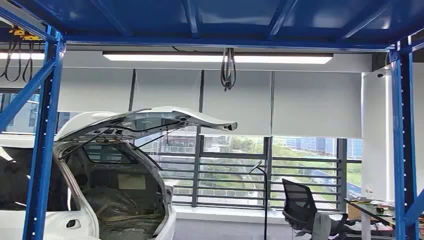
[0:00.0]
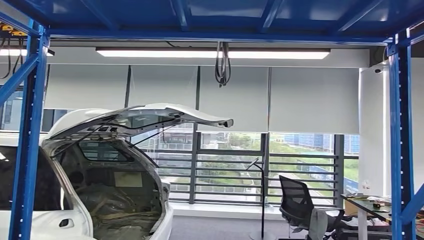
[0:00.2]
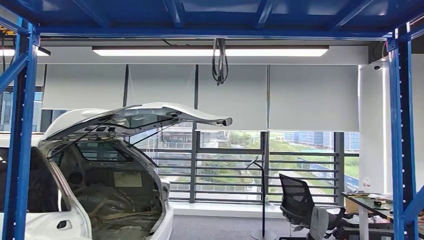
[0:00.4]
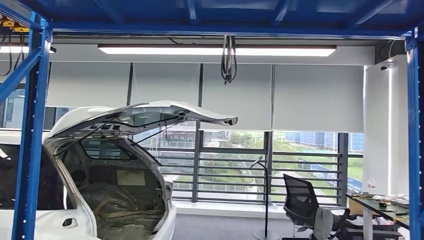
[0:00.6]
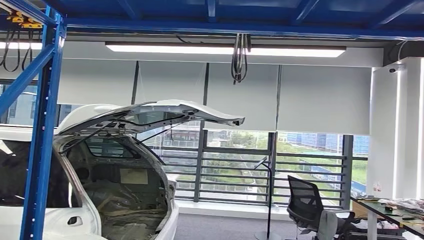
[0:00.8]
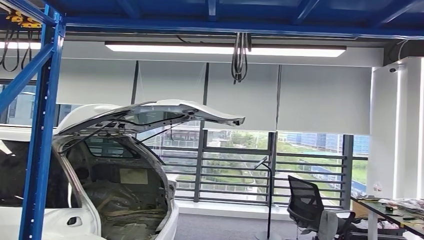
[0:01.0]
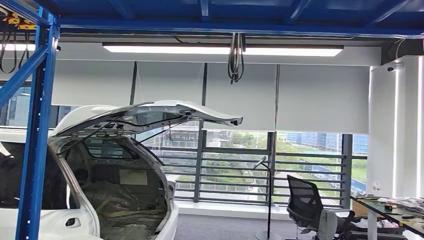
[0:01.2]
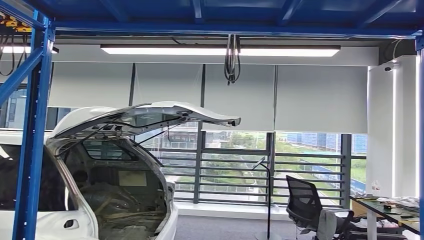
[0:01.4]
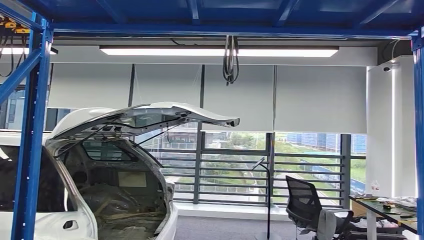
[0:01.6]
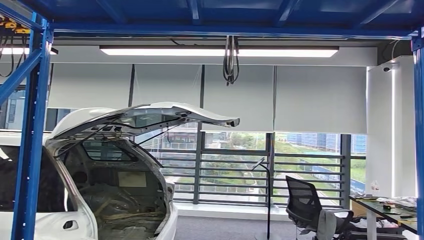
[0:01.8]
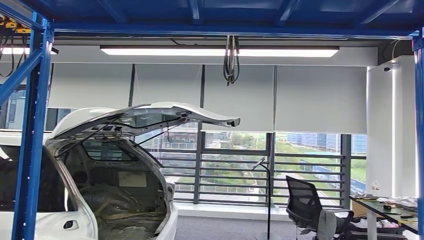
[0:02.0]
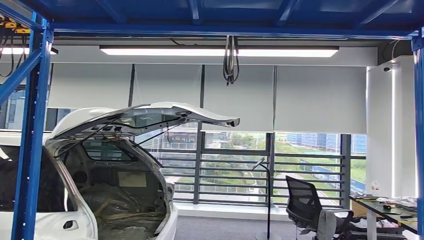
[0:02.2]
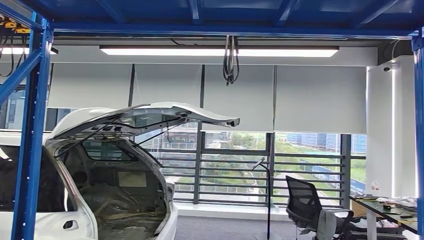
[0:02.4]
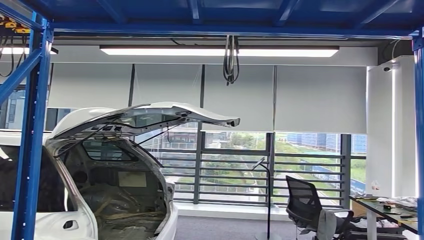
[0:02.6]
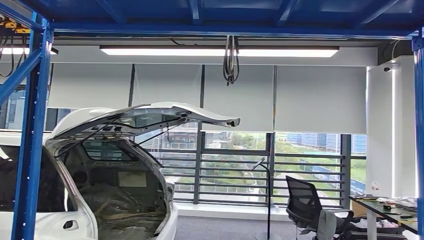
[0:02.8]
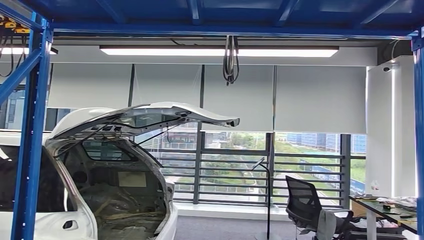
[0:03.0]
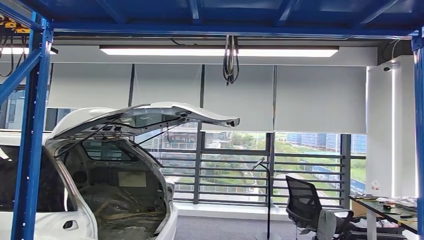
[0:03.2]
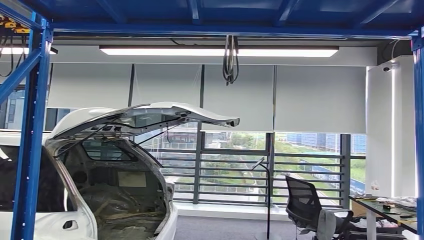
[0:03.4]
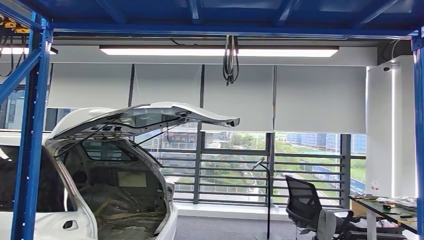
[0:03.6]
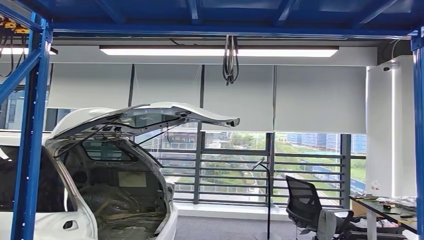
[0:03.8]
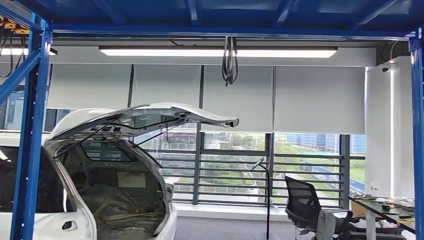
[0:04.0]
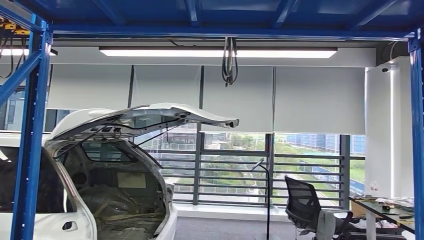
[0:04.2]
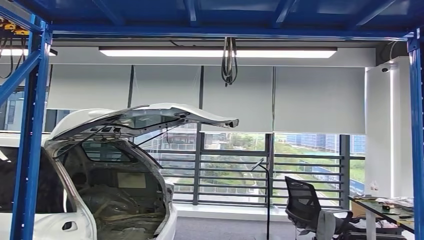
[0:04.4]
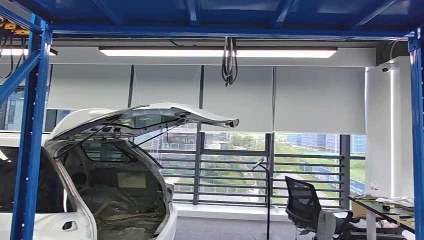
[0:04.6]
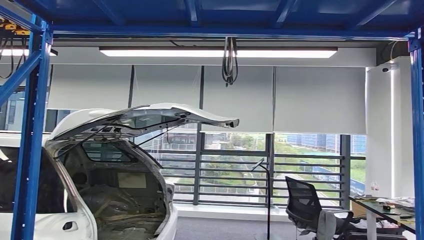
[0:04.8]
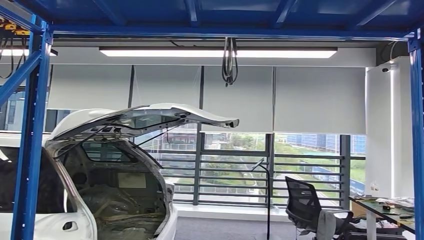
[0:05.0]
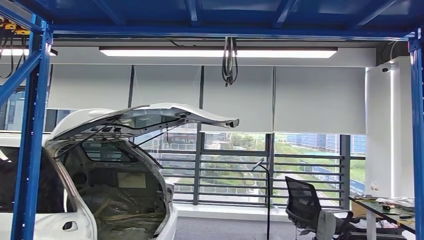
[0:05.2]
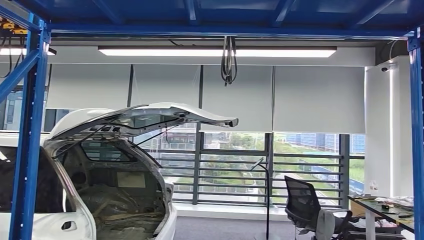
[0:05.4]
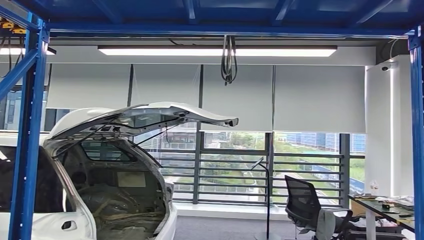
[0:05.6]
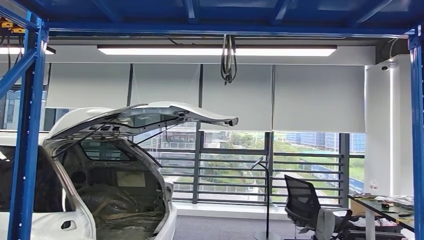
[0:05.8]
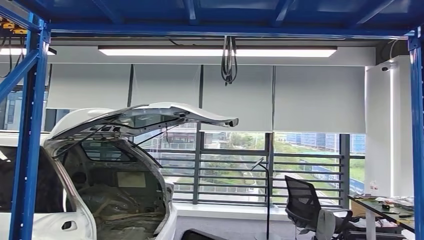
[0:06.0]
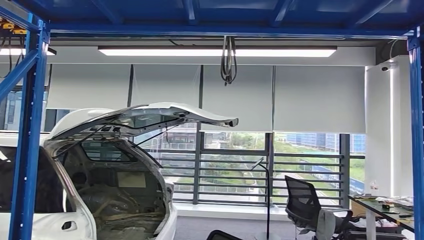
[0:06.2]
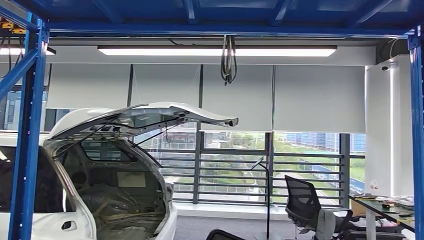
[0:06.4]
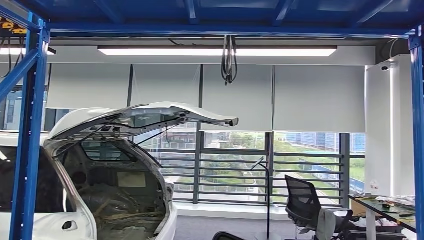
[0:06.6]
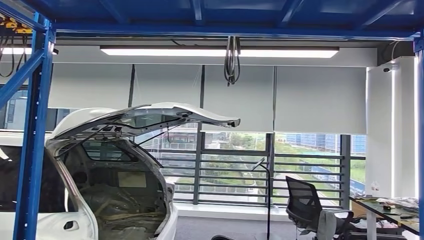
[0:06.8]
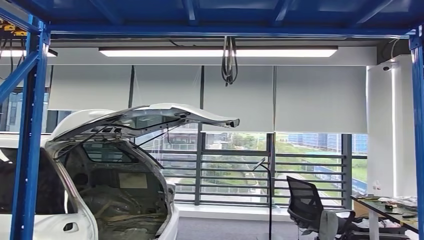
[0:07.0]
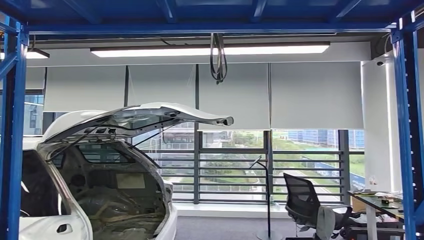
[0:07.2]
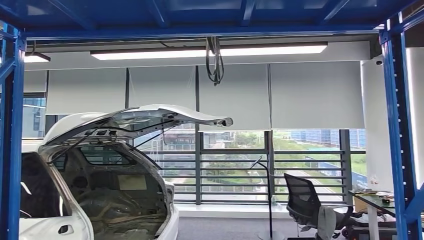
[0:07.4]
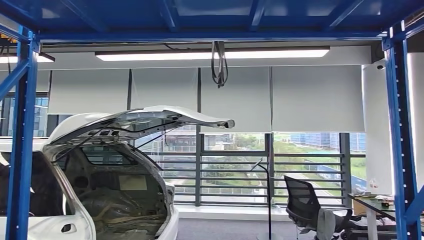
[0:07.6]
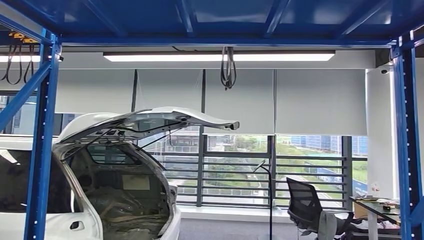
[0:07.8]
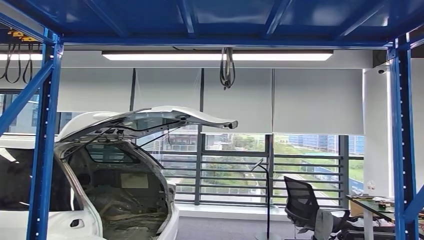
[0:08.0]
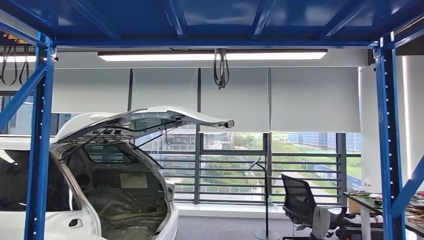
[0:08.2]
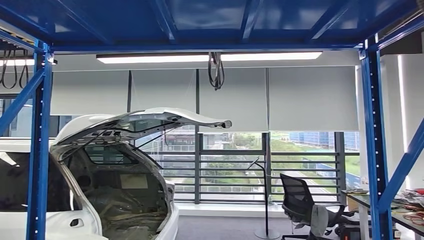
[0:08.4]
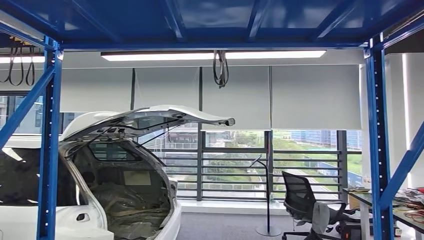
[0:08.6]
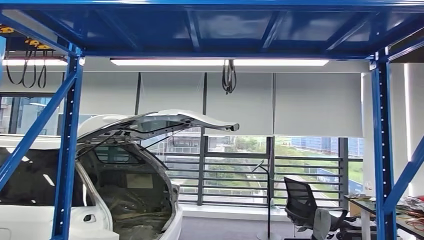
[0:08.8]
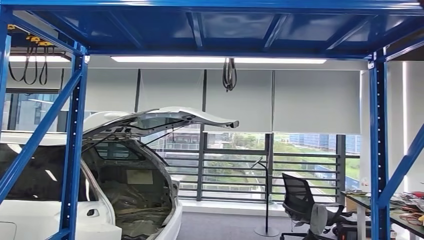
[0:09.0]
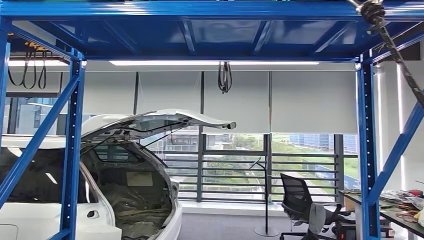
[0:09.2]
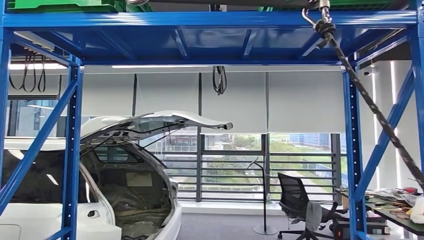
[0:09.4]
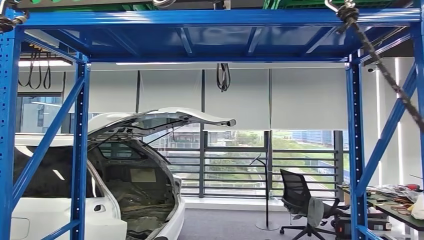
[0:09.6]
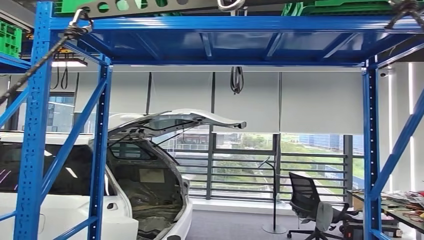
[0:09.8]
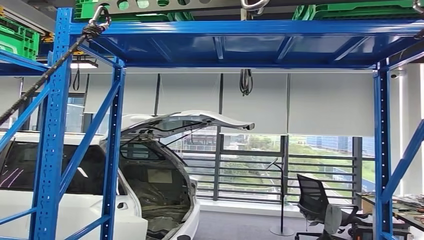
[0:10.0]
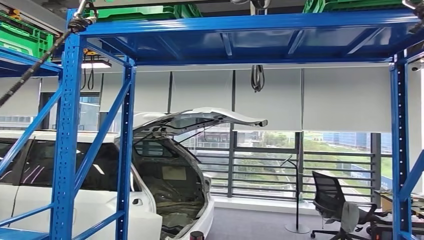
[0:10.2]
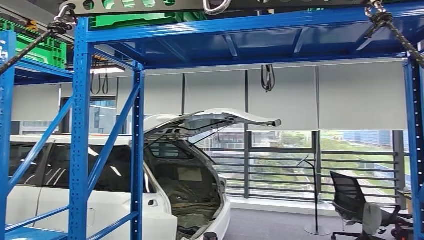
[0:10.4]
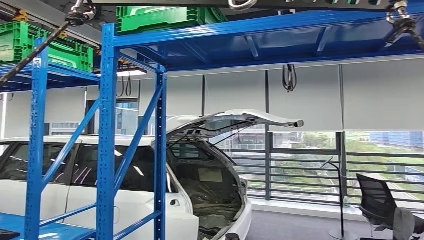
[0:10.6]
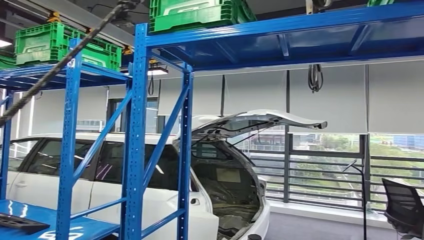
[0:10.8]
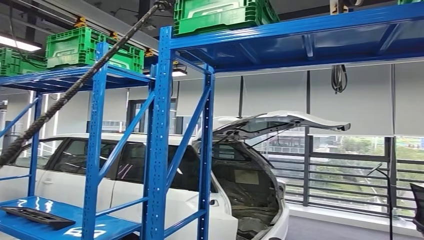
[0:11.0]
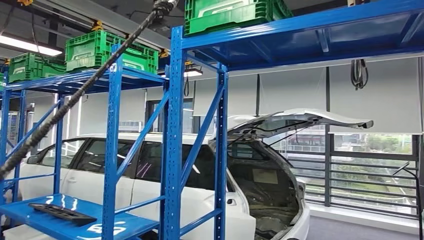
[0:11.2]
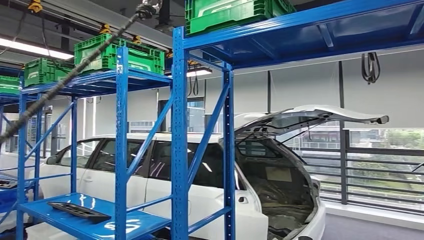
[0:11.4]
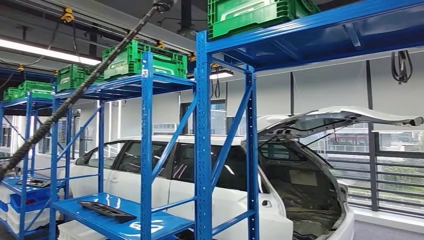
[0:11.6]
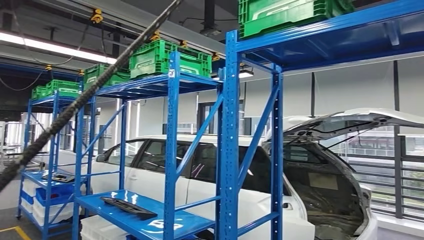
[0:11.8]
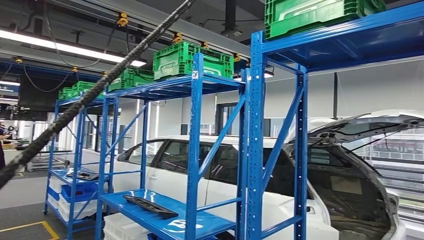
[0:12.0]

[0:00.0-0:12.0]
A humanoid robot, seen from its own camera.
Step, 0:00.0 to 0:05.8: Pick up the small component from the shelf.
0:03.0 to 0:04.4: The right hand moves forward and to the left, about 15 cm.
0:04.4 to 0:06.0: The right hand moves upward and backward, approximately 15 cm.

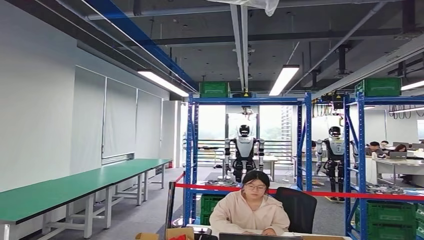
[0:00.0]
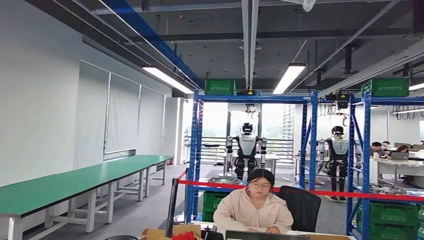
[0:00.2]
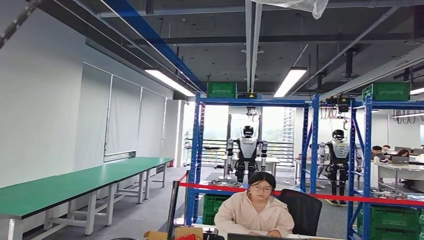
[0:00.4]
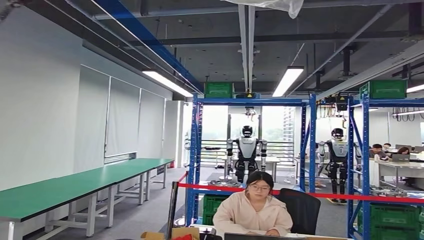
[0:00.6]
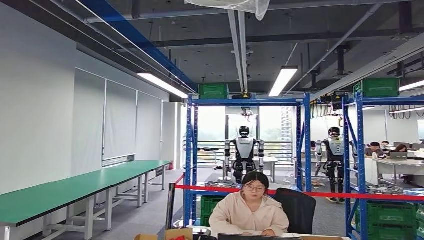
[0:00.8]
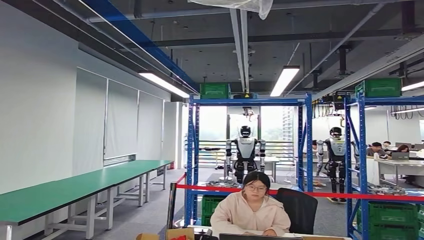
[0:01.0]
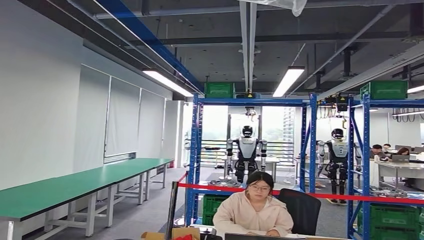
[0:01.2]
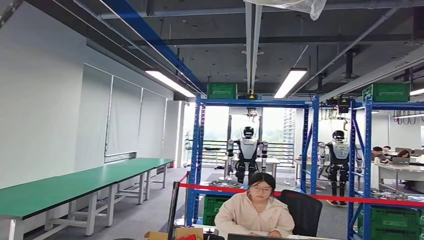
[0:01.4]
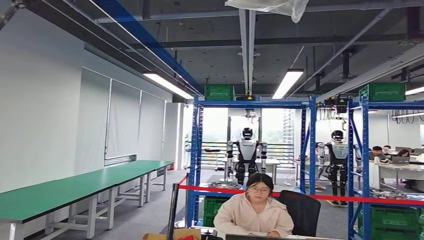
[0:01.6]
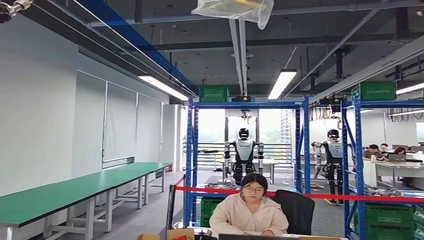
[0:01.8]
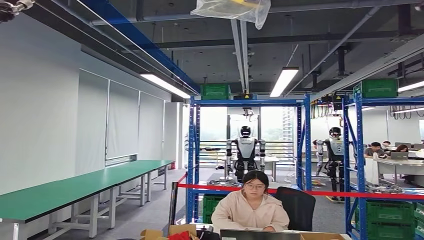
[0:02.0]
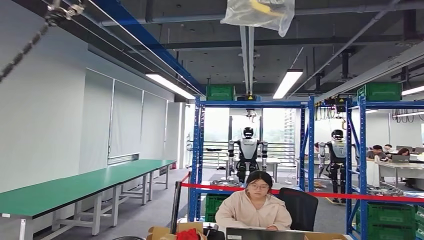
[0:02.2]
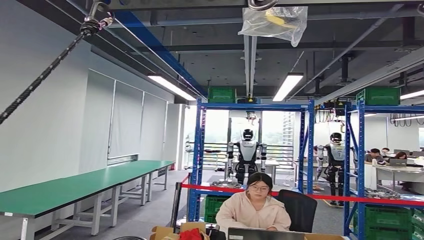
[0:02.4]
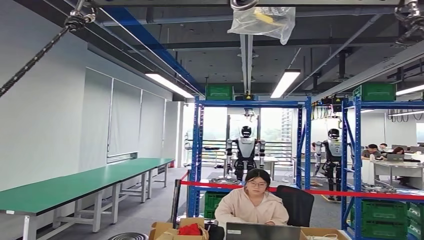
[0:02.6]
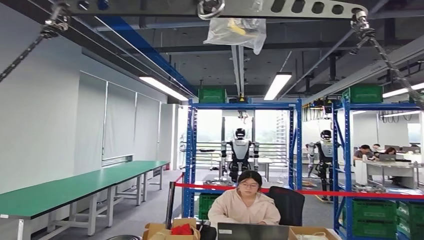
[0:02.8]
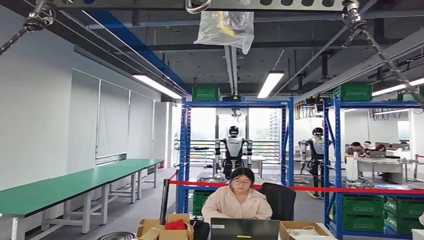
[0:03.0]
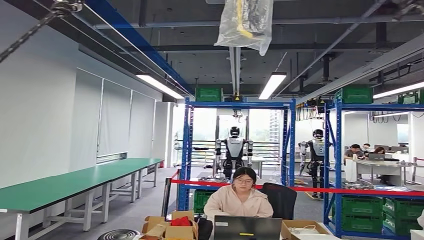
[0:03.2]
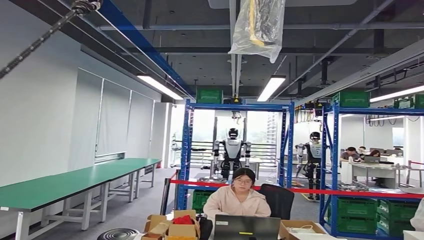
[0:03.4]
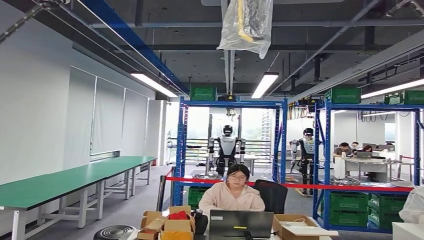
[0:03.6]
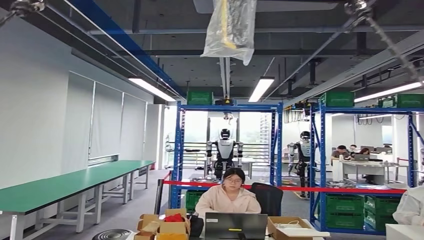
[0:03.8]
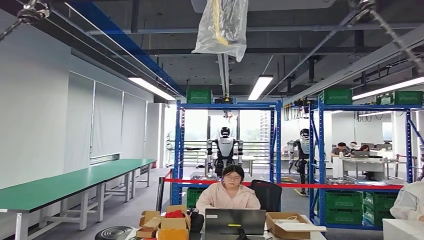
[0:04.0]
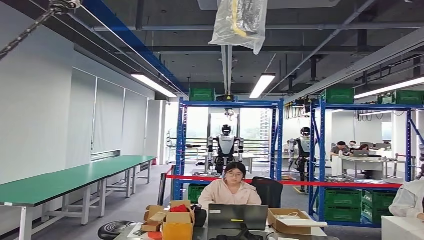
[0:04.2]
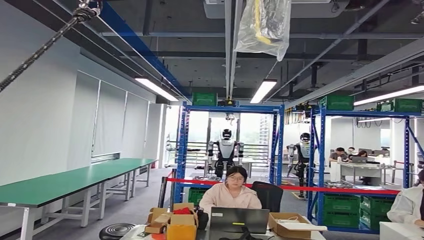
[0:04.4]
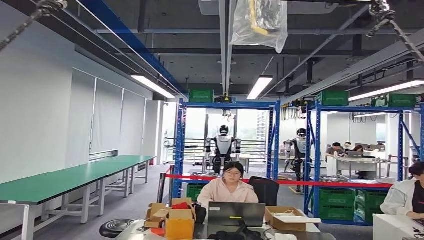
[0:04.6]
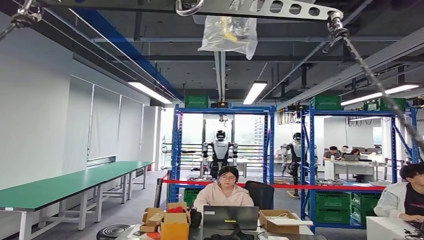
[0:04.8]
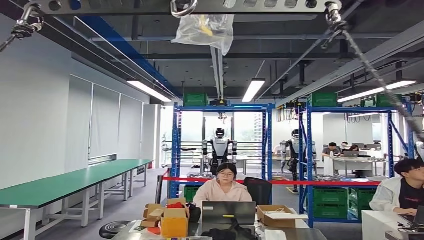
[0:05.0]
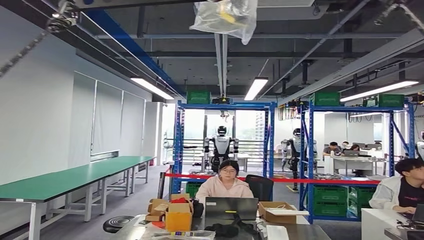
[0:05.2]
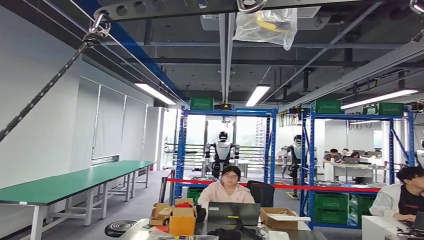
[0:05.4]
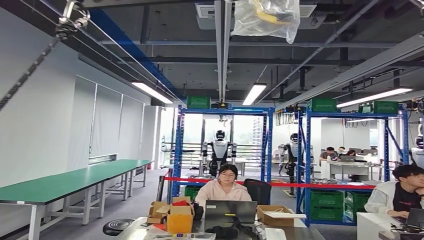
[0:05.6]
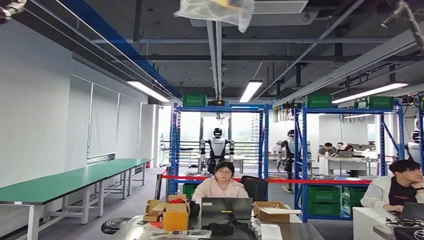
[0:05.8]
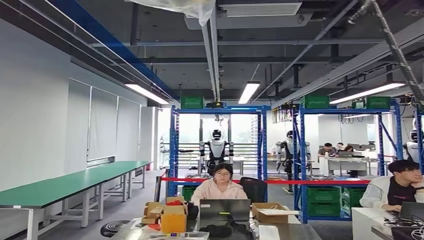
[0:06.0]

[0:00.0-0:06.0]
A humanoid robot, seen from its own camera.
Step, 0:02.2 to 0:05.8: Return to the initial position at the workbench.
